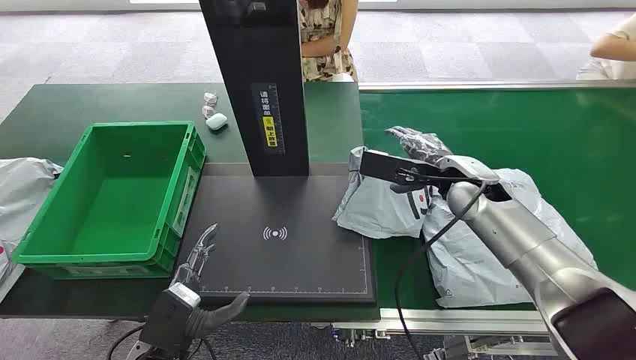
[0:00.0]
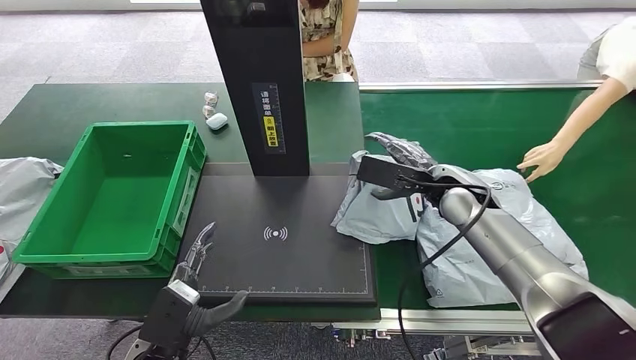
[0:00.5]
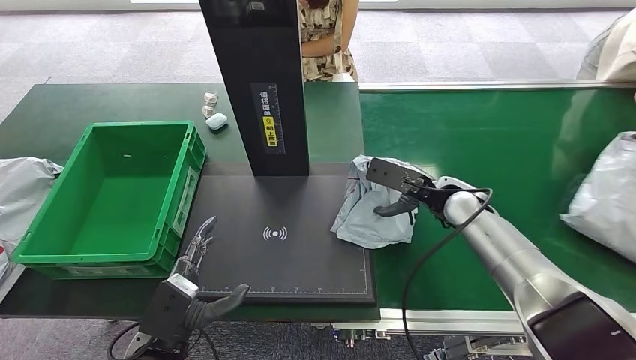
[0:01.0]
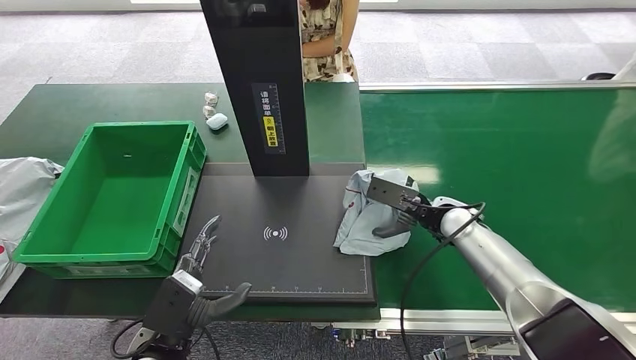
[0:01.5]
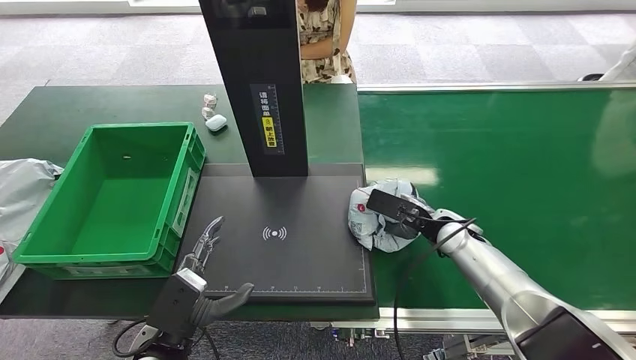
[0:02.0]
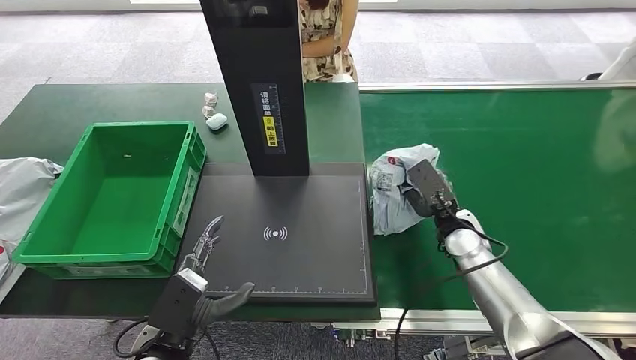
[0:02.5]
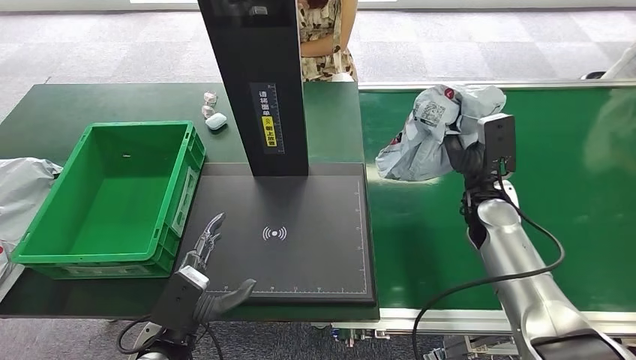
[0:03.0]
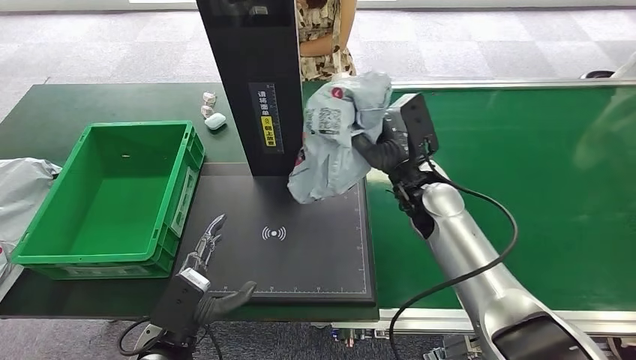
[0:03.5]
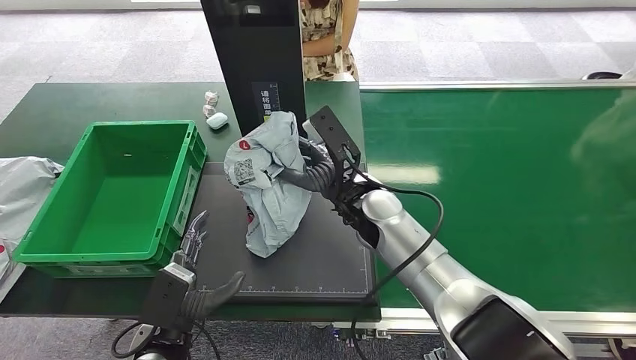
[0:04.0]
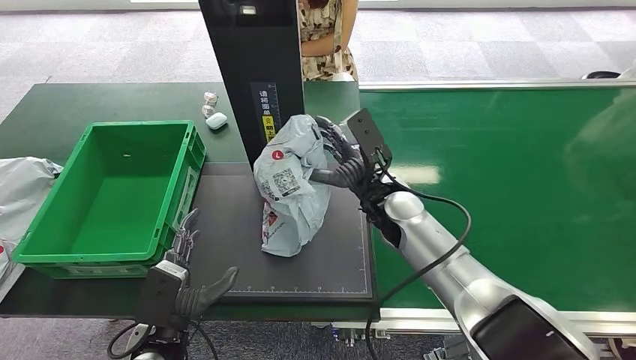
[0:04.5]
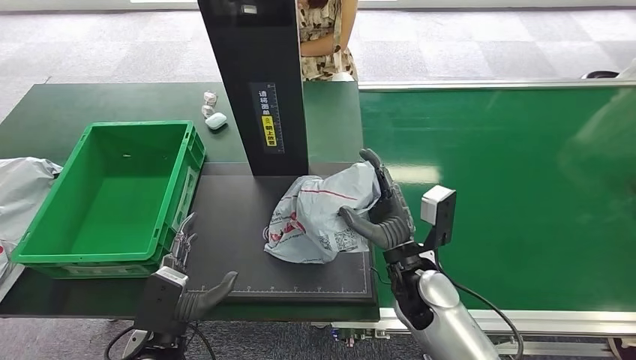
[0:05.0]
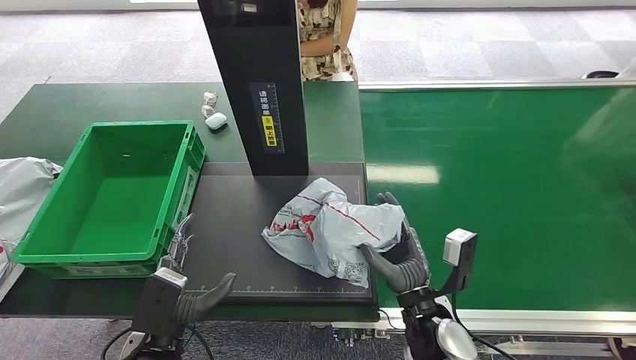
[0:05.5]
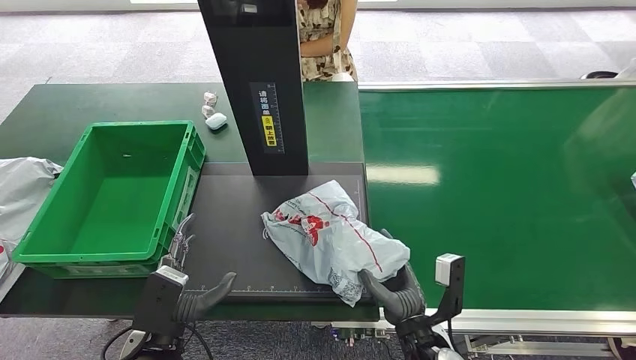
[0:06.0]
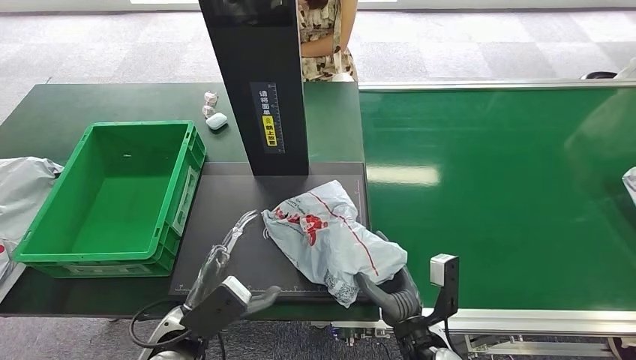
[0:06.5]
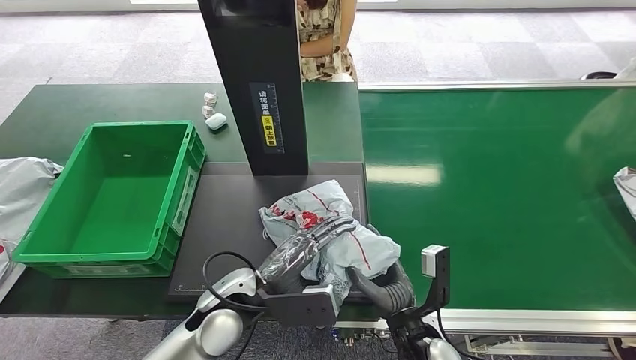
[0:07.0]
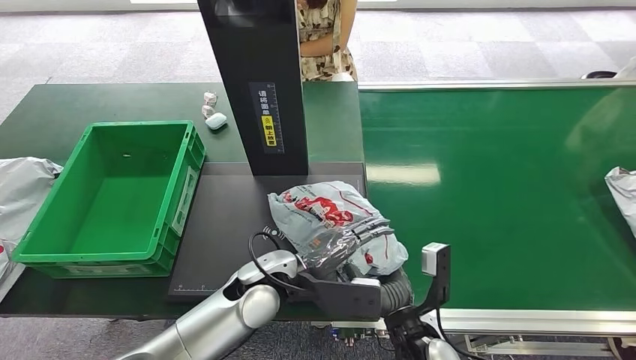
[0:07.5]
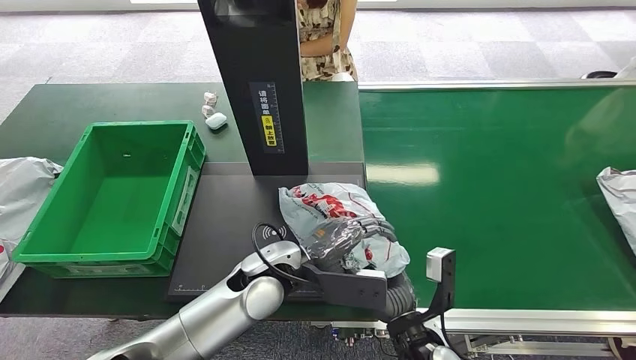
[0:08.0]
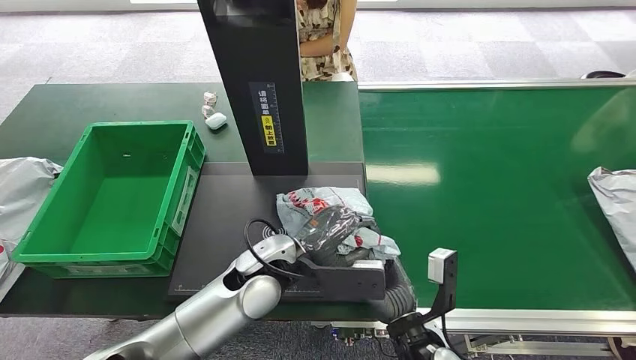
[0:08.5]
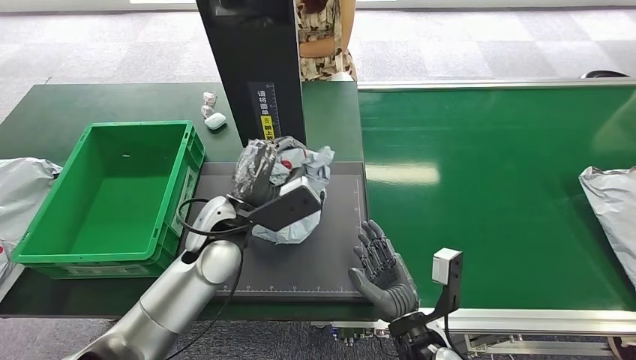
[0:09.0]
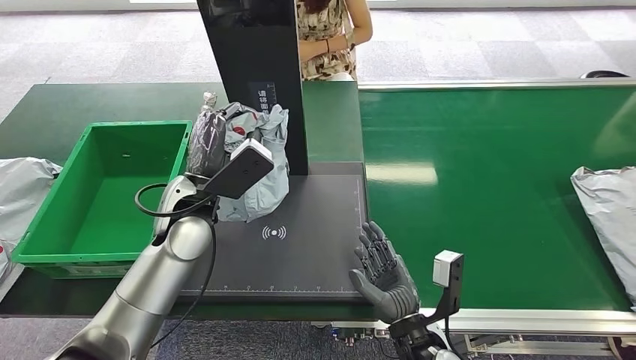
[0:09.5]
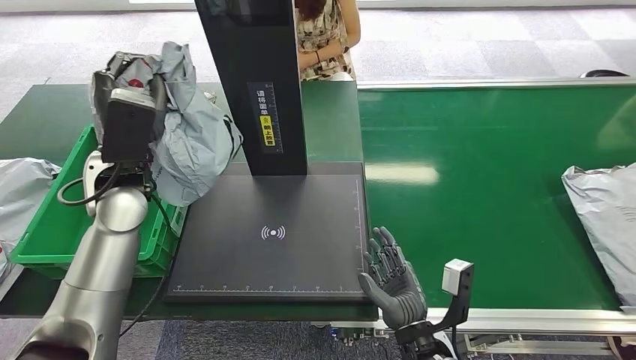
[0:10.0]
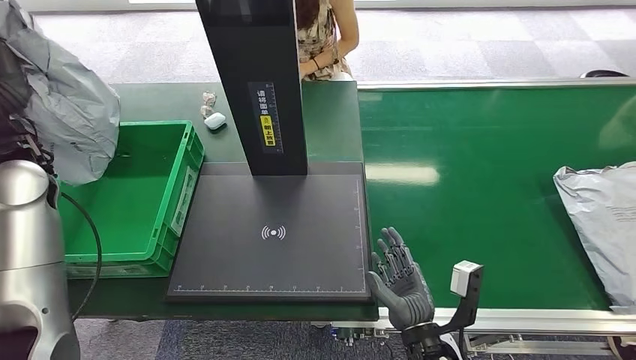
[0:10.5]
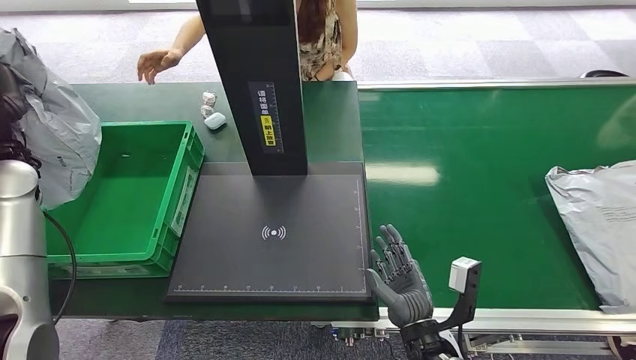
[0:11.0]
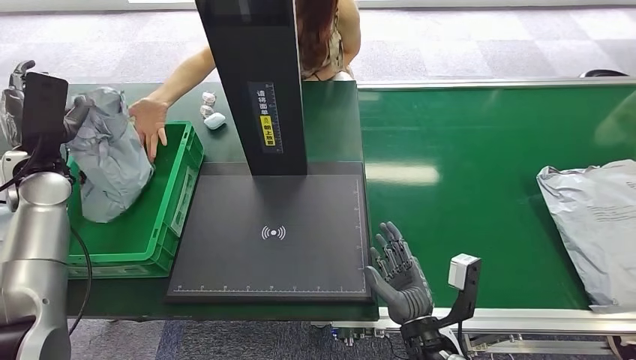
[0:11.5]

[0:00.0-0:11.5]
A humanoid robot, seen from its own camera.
Step, 0:00.0 to 0:03.0: Pick up the package from the conveyor belt.
Step, 0:03.5 to 0:06.0: Place the package onto the inbound machine.
Step, 0:06.5 to 0:09.0: Pick up the package from the inbound machine.
Step, 0:09.5 to 0:11.5: Place the package into the parcel locker.
0:04.0 to 0:06.0: The right hand shifts approximately 25 cm backward, downward and to the right.
0:06.0 to 0:07.5: The left hand is displaced to the right and forward by approximately 20 cm.

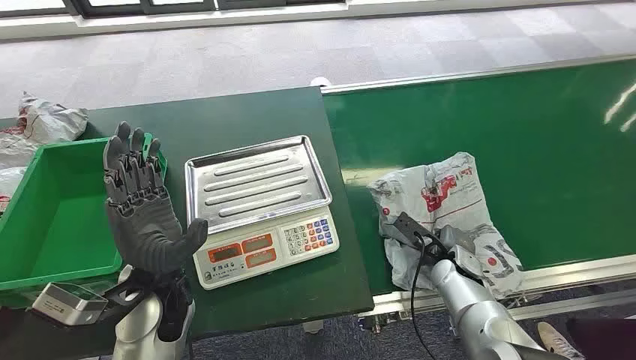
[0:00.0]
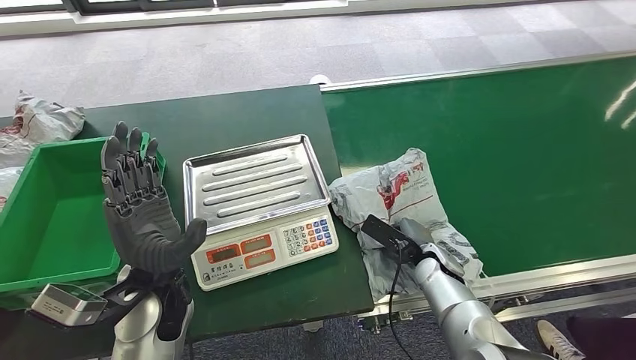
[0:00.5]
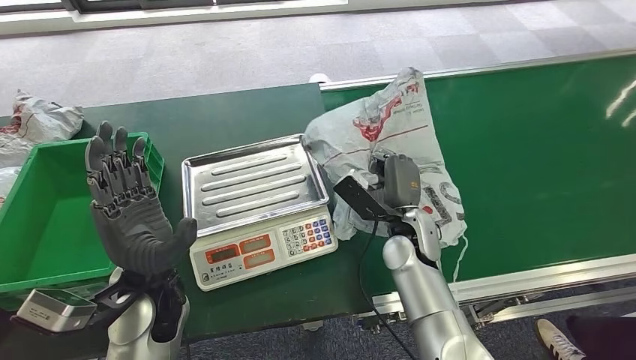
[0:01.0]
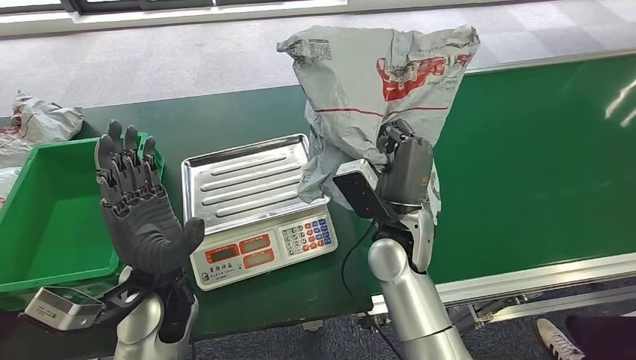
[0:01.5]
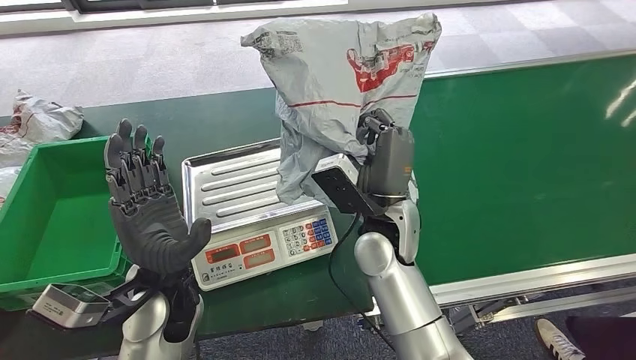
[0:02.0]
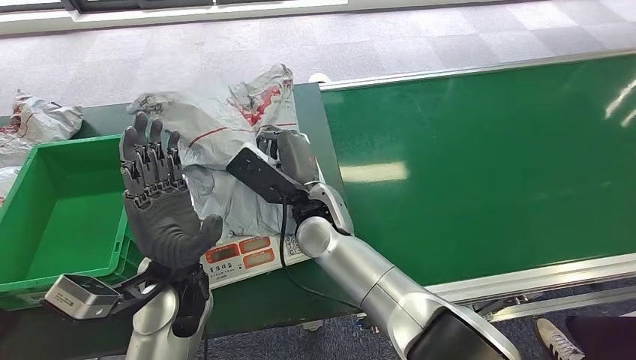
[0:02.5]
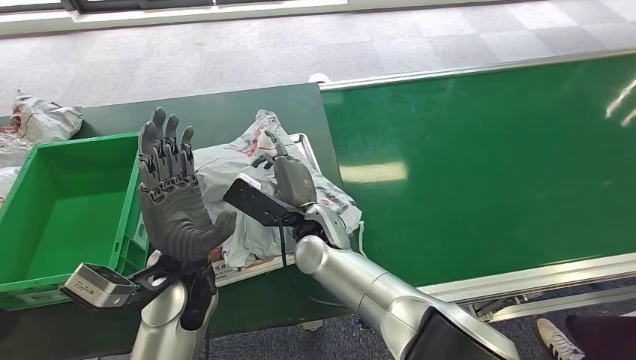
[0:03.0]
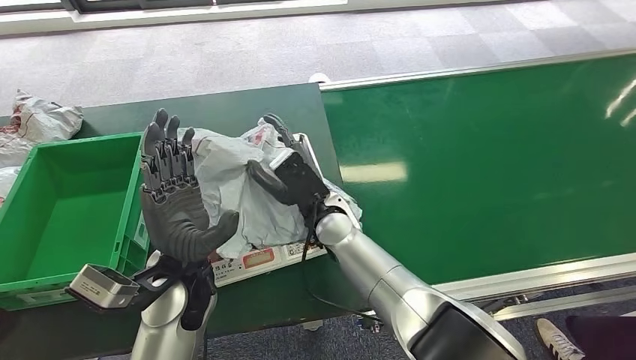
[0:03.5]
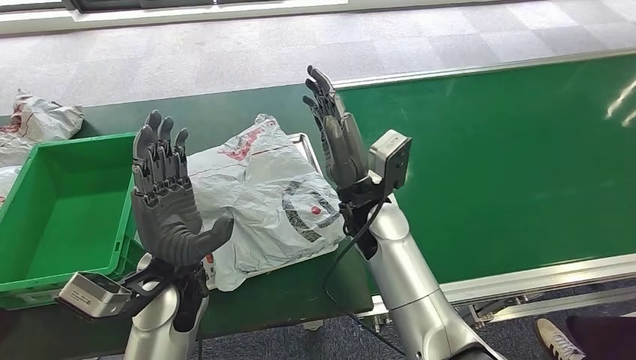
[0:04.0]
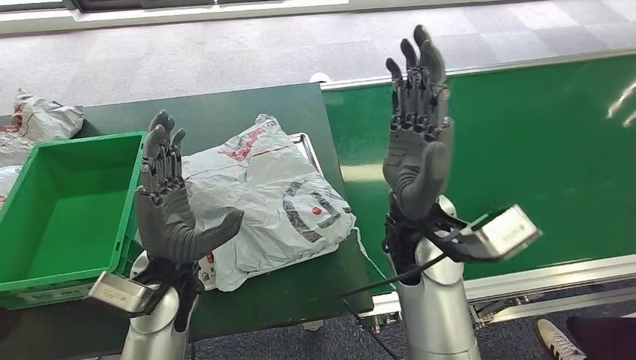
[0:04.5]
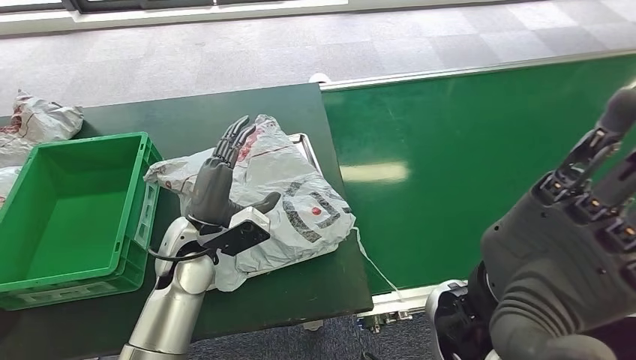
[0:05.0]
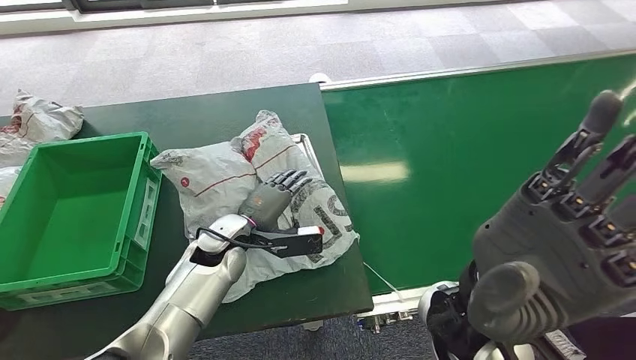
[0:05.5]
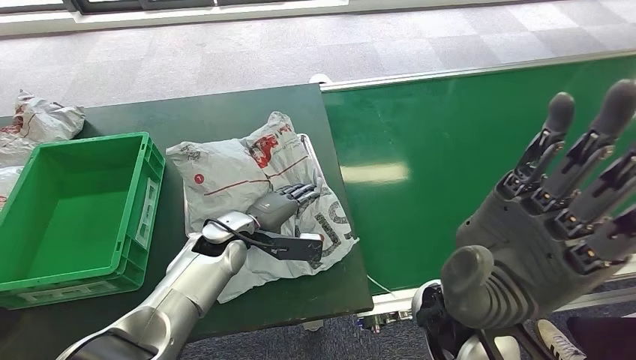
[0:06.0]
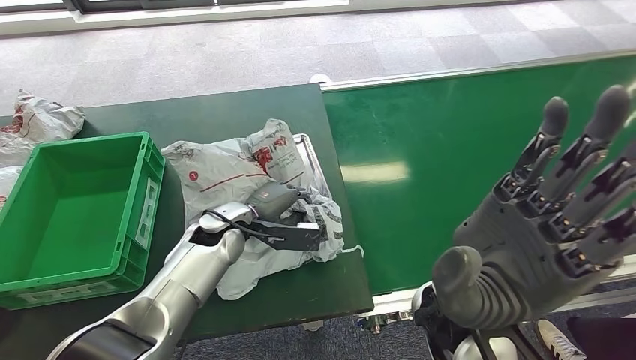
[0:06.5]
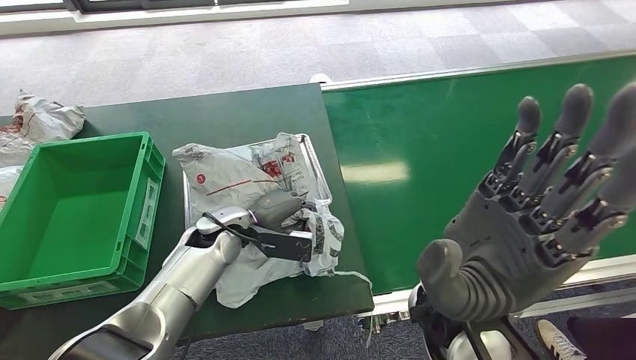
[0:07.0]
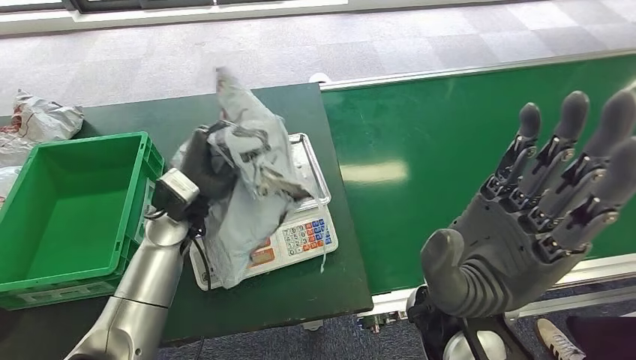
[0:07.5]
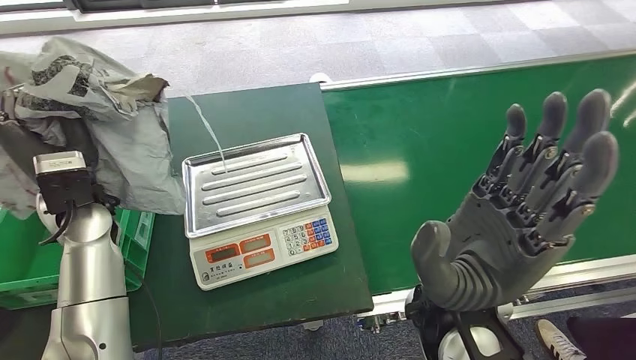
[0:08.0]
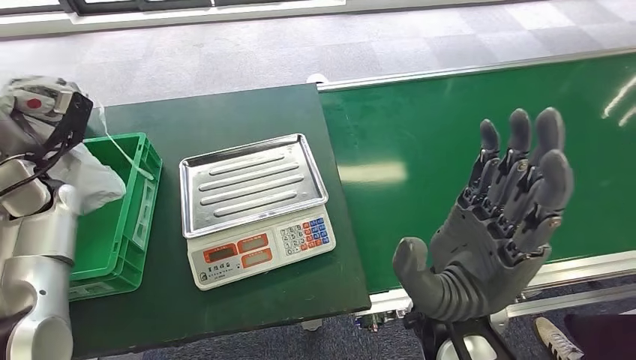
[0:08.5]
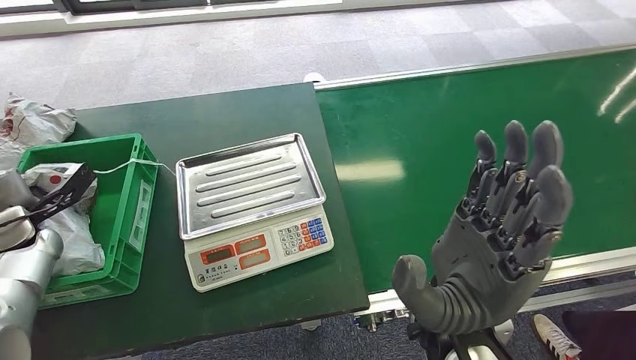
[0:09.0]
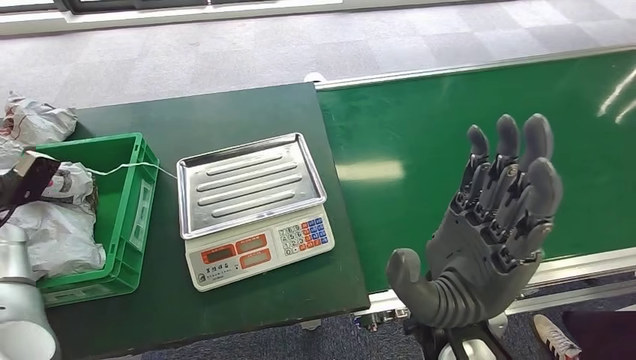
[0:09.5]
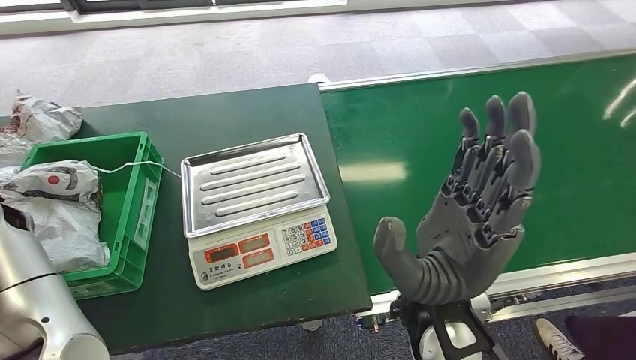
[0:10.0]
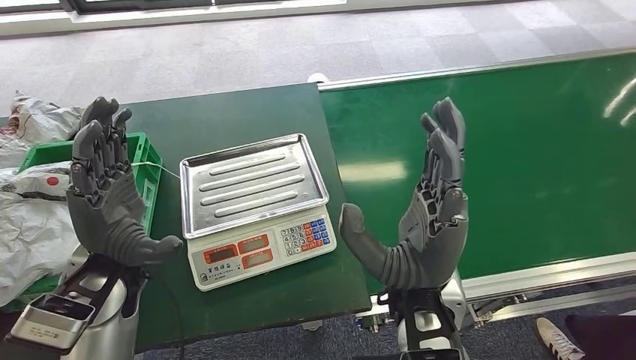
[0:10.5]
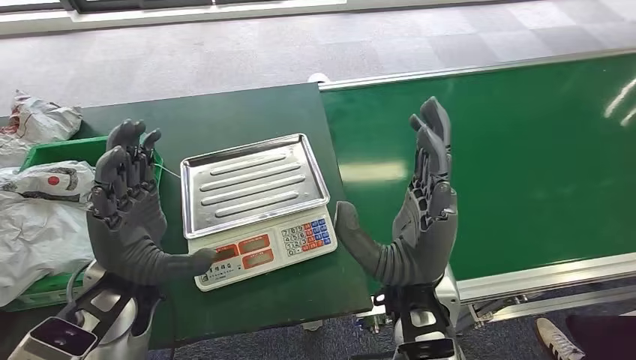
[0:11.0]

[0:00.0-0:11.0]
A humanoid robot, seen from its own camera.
Step, 0:00.0 to 0:01.5: Pick up the package from the conveyor belt.
Step, 0:02.0 to 0:04.5: Place the package onto the inbound machine.
Step, 0:05.0 to 0:07.5: Pick up the package from the inbound machine.
Step, 0:08.0 to 0:10.5: Place the package into the parcel locker.
